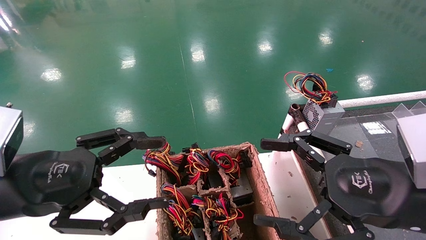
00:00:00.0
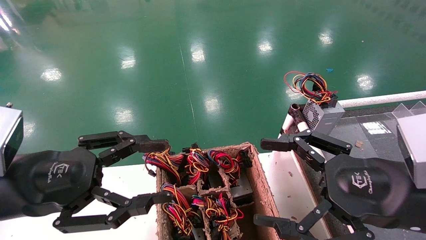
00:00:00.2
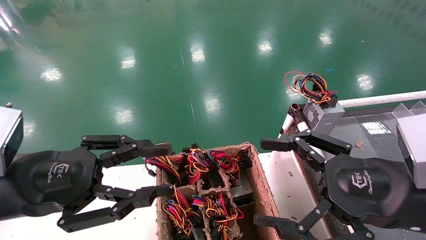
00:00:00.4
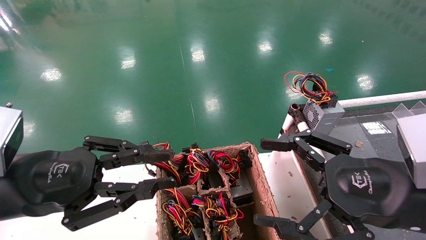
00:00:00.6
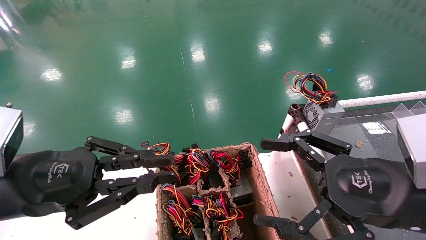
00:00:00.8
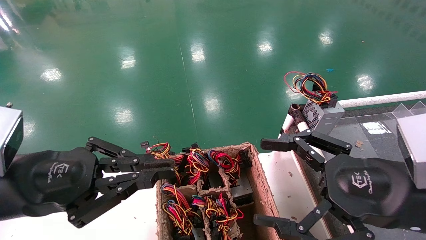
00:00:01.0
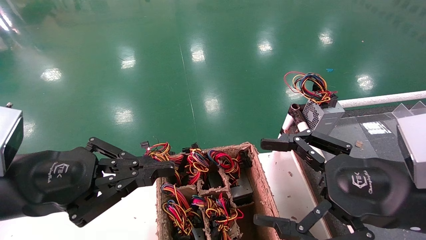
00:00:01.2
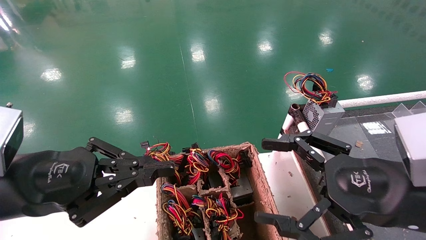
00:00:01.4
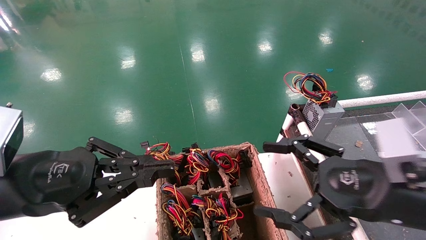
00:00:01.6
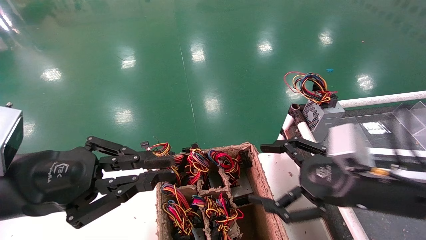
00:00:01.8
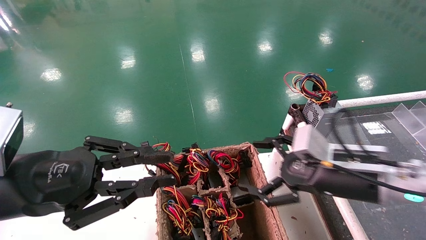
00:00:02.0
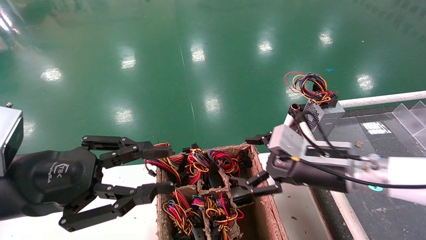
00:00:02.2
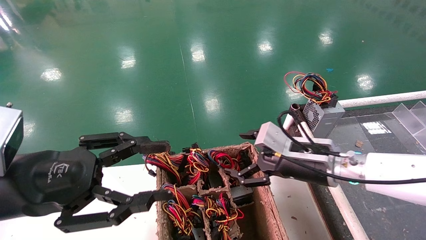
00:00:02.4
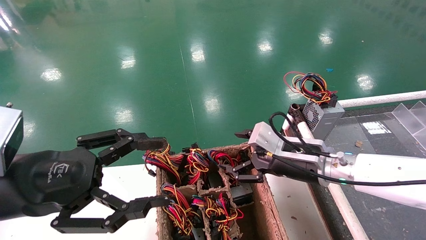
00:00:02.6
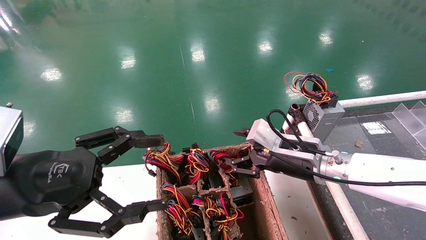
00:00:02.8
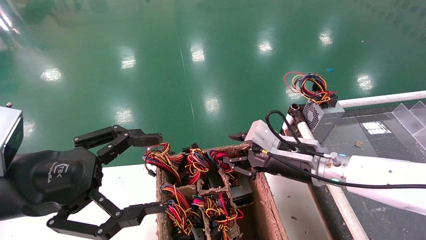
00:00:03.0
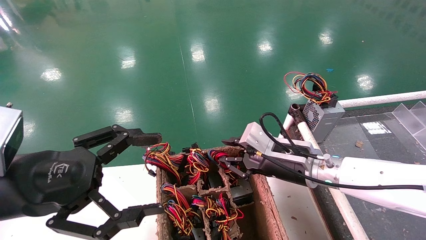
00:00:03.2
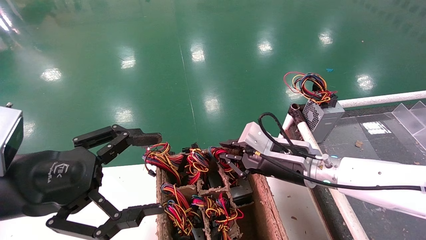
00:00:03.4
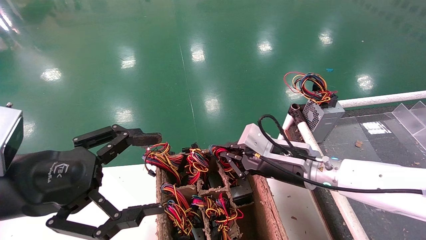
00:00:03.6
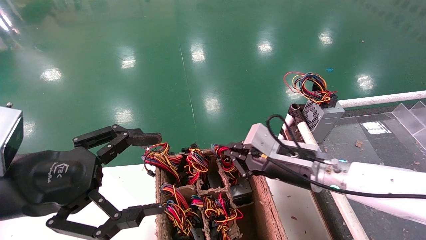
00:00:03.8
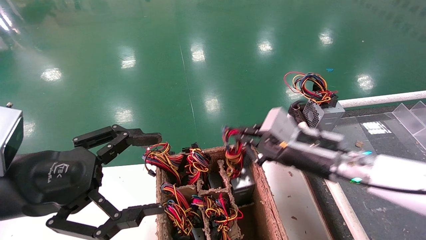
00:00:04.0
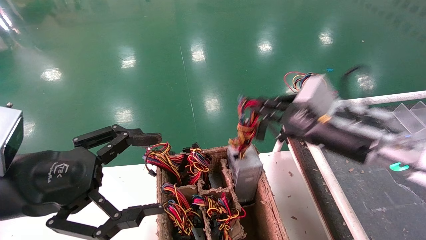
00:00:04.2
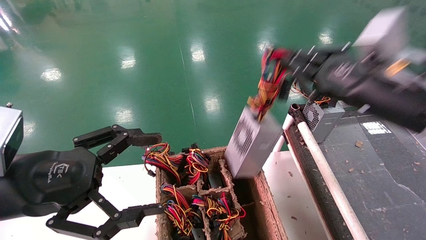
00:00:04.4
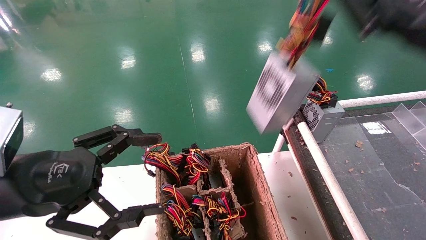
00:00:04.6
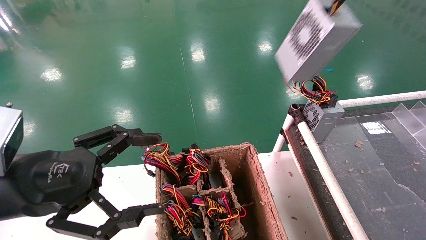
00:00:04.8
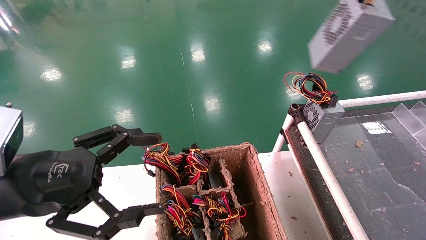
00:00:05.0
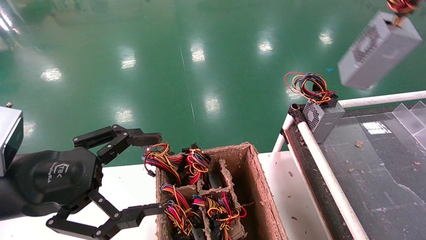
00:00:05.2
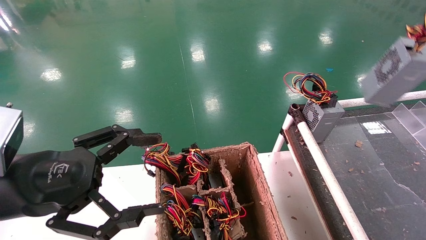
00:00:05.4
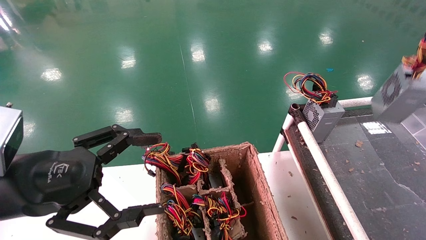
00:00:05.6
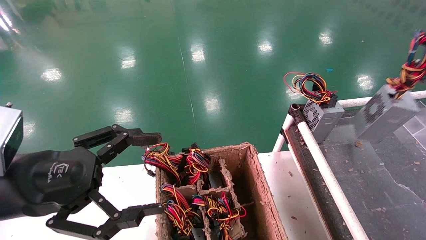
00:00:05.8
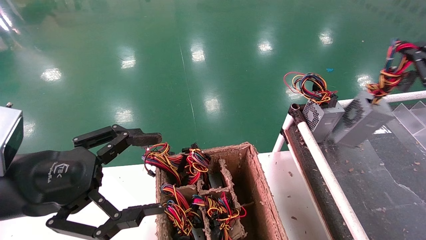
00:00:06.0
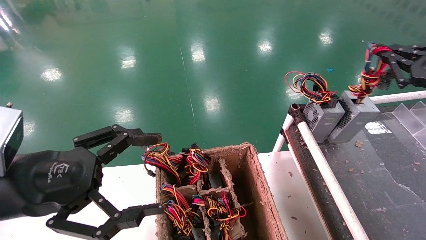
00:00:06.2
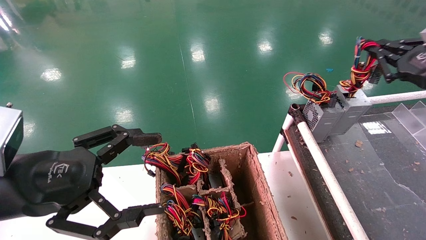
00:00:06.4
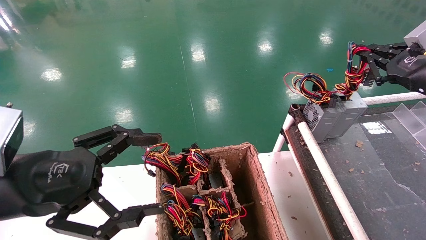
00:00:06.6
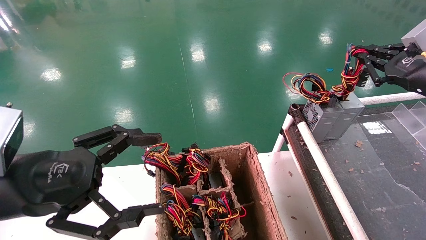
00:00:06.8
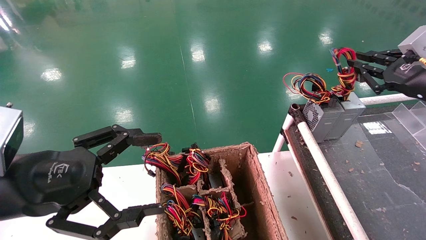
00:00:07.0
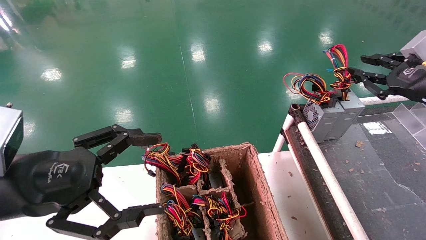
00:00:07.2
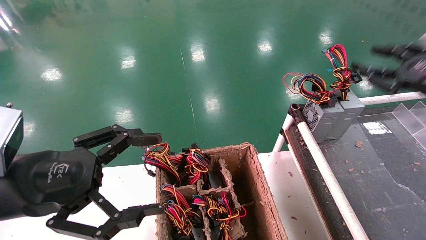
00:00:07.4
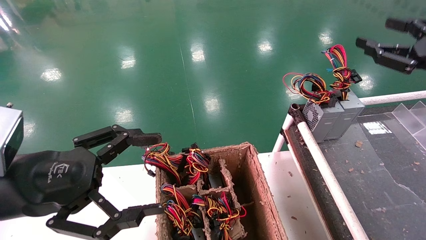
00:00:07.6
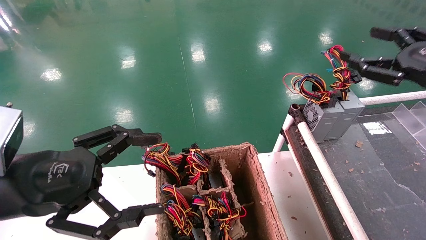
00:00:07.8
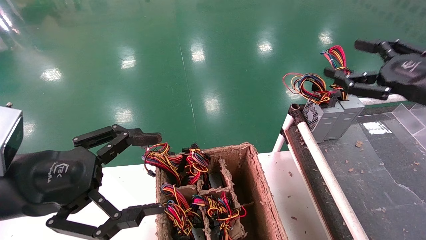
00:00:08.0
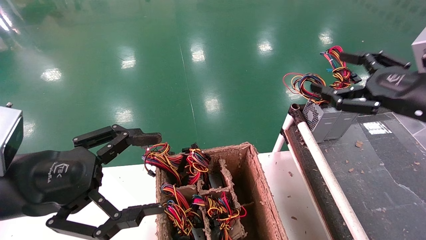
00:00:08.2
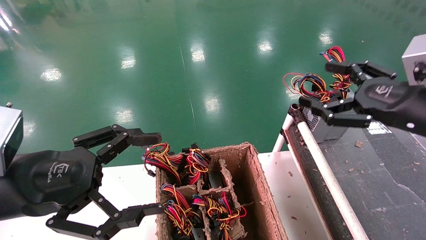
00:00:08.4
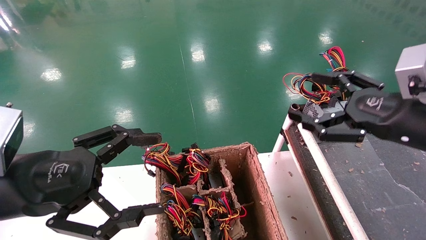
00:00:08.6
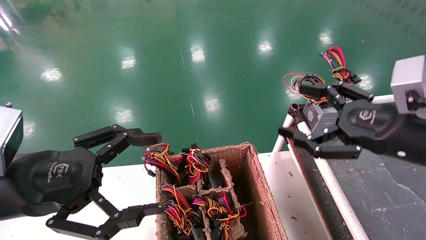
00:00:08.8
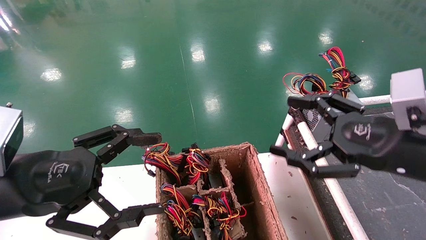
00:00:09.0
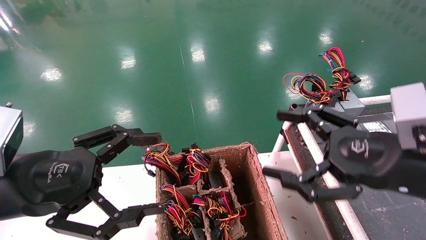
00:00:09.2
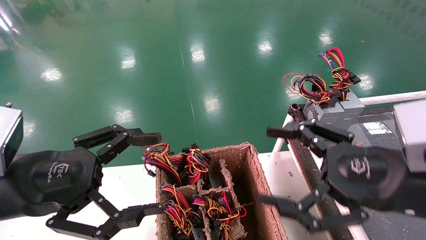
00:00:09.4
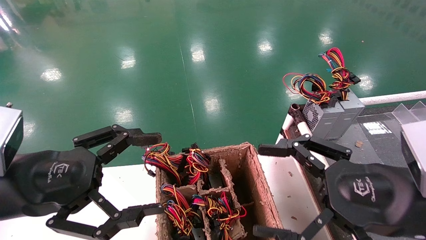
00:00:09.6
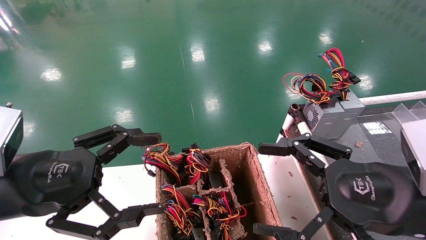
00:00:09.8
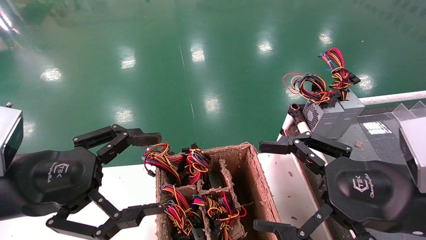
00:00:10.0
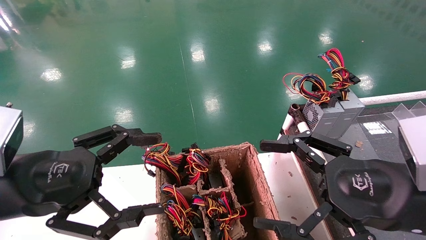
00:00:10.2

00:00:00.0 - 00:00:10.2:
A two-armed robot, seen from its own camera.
Step, 00:00:01.8 - 00:00:03.8: Grab and lift the power supply from the large box.
Step, 00:00:04.0 - 00:00:07.0: Place the power supply on the operating table.
00:00:00.0 - 00:00:01.4: The left gripper closes up.
00:00:01.4 - 00:00:03.0: The right gripper is displaced forward and to the left by some 20 cm, and closes; the left gripper opens.
00:00:03.0 - 00:00:04.4: The right gripper is displaced upward, to the right and backward by approximately 20 cm, and closes its fingers.
00:00:04.4 - 00:00:05.8: The right gripper moves to the right, approximately 20 cm.
00:00:05.8 - 00:00:07.2: The right gripper shifts some 5 cm to the left.
00:00:07.2 - 00:00:08.8: The right gripper is displaced to the left and backward by about 15 cm, and opens up.
00:00:08.8 - 00:00:10.2: The right gripper is displaced backward by some 5 cm.
